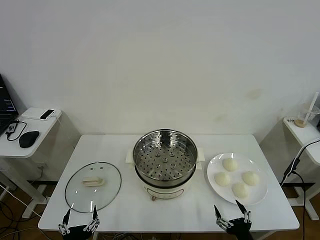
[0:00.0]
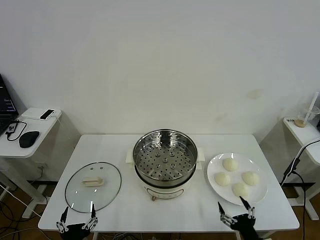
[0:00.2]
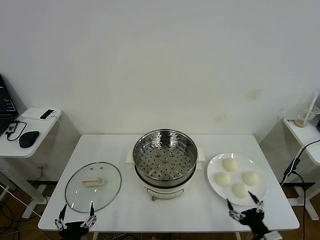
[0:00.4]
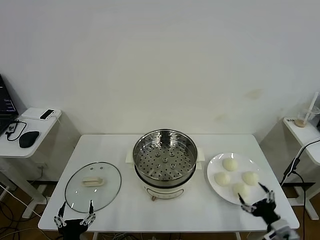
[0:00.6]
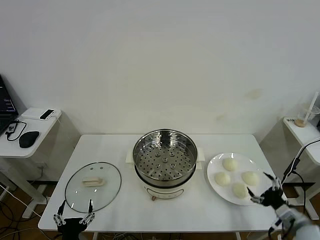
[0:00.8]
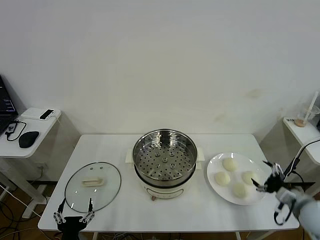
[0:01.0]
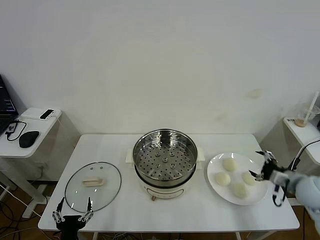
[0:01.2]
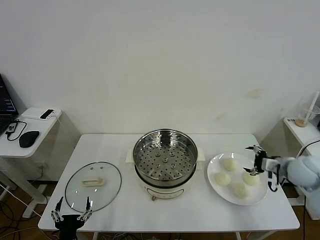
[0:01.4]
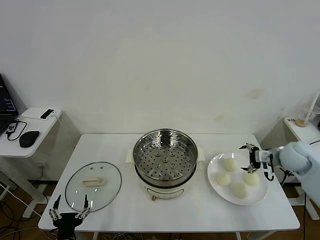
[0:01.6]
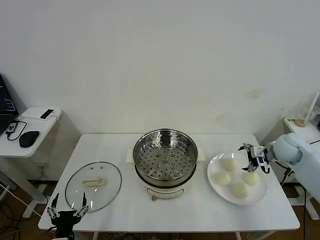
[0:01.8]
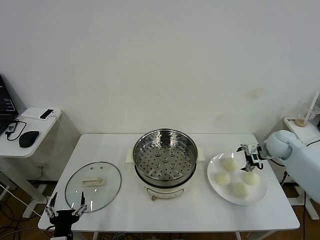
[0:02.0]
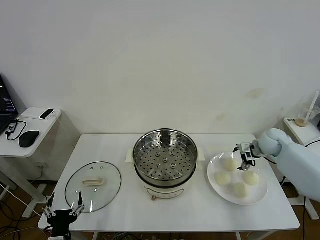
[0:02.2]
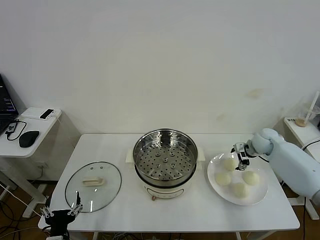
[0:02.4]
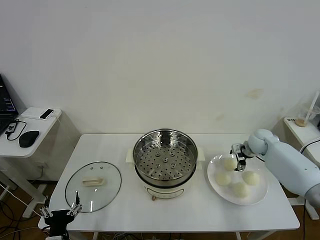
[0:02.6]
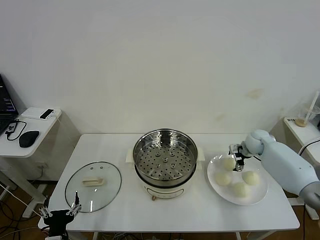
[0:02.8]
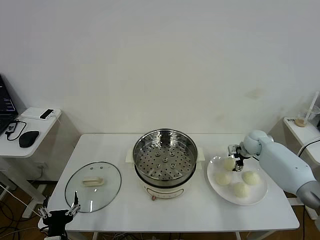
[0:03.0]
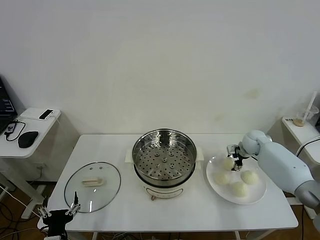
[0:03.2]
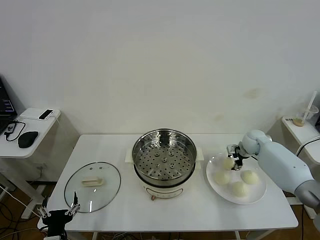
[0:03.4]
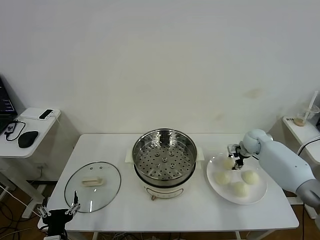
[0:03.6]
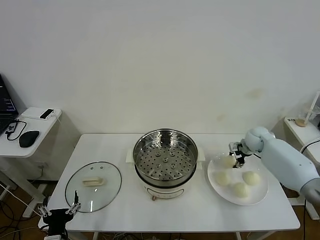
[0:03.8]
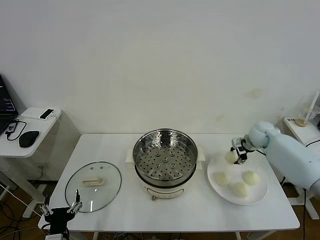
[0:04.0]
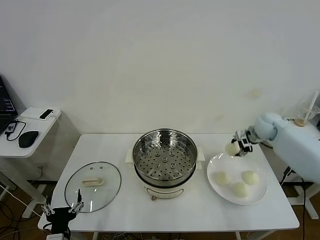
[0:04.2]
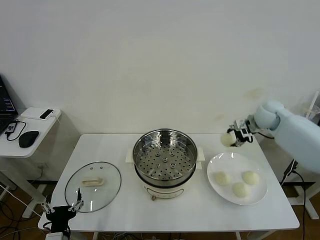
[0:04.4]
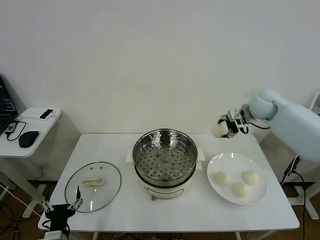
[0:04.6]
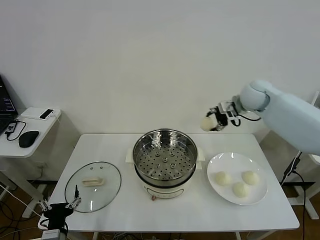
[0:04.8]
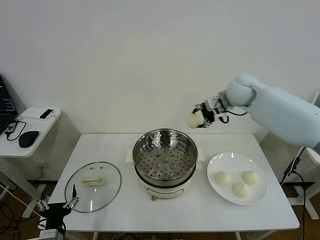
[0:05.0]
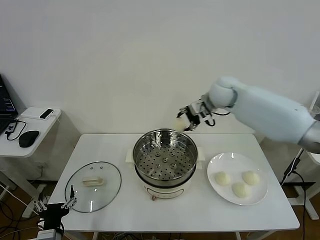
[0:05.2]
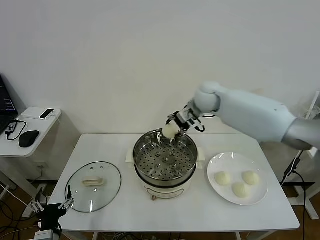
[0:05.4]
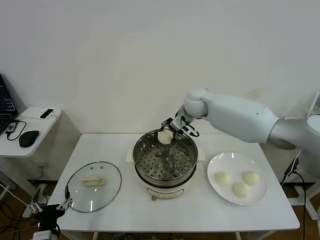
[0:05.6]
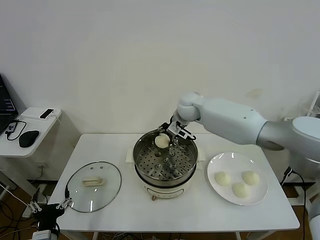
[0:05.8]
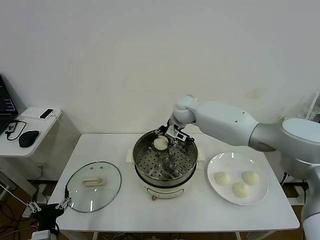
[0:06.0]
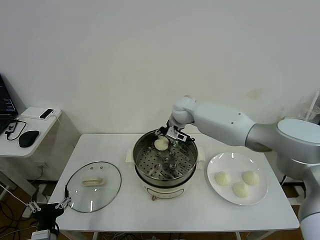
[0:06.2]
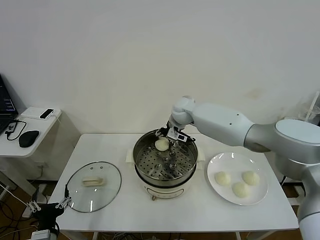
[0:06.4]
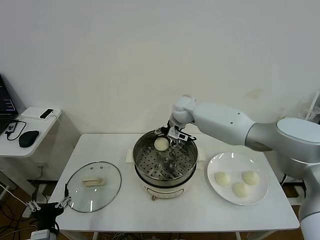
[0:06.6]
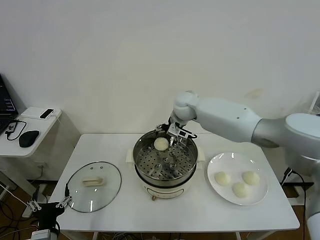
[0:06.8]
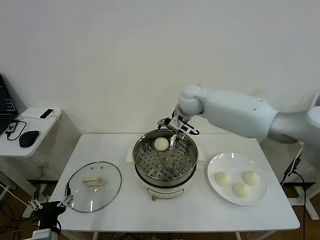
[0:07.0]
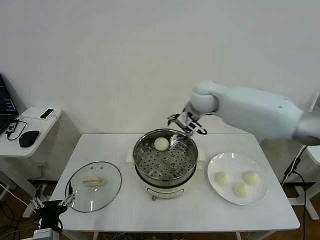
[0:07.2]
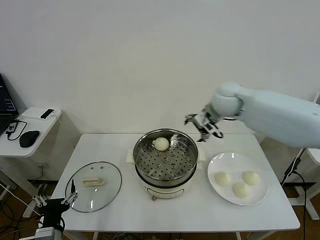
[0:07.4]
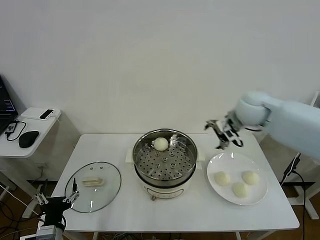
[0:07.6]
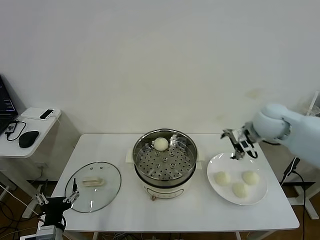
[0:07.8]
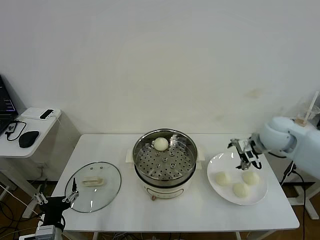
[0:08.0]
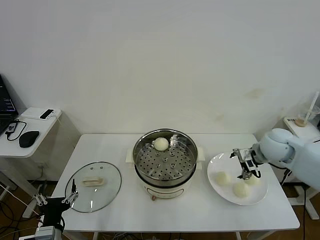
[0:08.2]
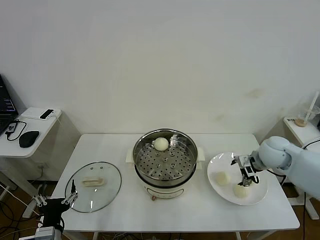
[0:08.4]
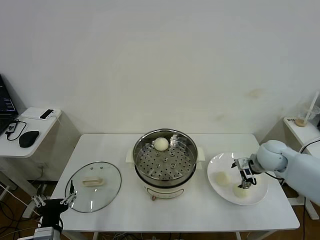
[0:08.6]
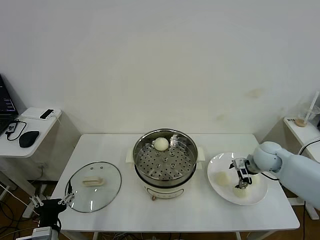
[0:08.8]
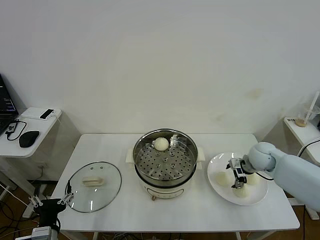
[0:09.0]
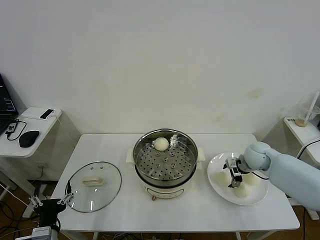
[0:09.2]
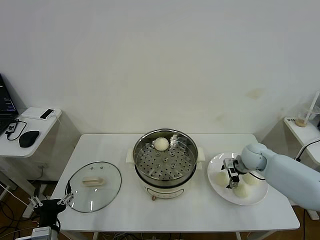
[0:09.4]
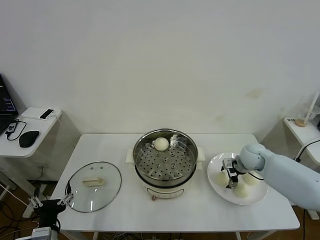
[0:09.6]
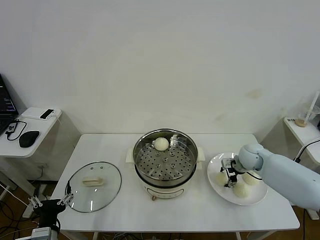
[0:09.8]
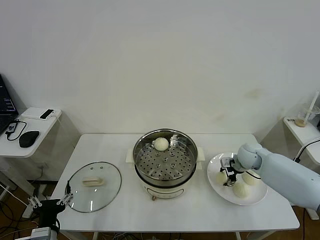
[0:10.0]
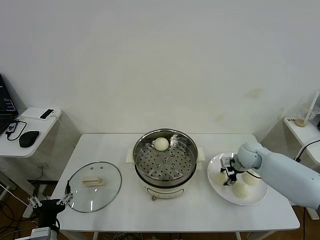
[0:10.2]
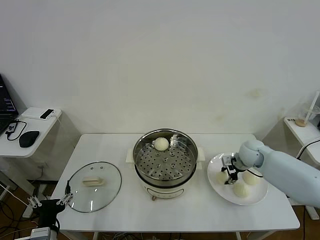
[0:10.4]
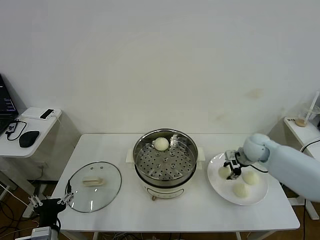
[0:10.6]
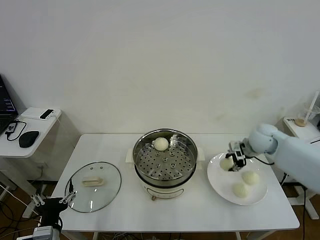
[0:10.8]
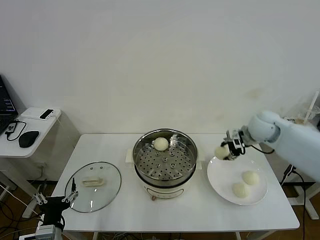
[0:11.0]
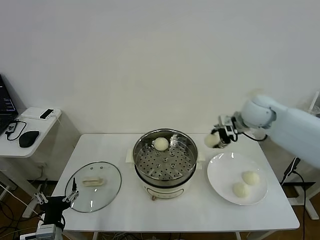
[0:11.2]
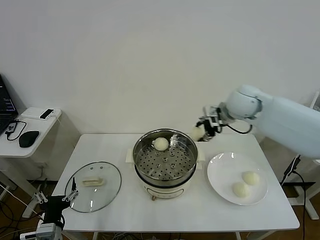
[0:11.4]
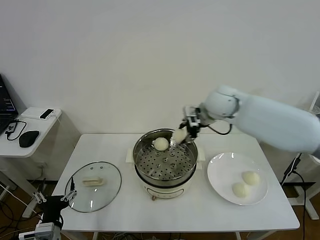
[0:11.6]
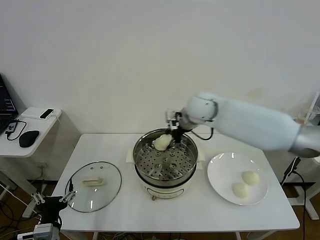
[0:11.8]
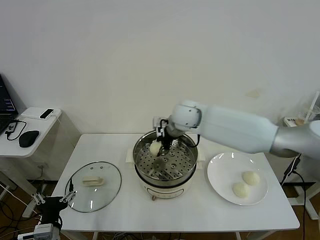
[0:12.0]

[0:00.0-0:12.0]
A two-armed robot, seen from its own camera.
Task of the whole recording: take steamed baozi put them in steamer then cover it.
Step, 0.0 to 3.4 s: Grasp the baozi in the plate with right gripper.
Step, 3.6 to 6.6 s: Place the baozi on the steamer with right gripper.
Step, 6.8 to 10.2 s: Grasp the baozi in the plate with right gripper.
1.6 to 3.0 s: The right gripper goes about 15 cm forward, downward and to the left, and closes up.
3.0 to 4.4 s: The right gripper shifts approximately 20 cm upward, and closes up.
4.4 to 6.0 s: The right gripper heads to the left, covering some 25 cm.
6.0 to 7.6 s: The right gripper shifts about 25 cm to the right and backward, and opens up.
7.6 to 9.0 s: The right gripper heads downward, covering approximately 20 cm.
9.0 to 10.4 s: The right gripper closes.
10.4 to 12.0 s: The right gripper moves to the left and upward, about 30 cm.

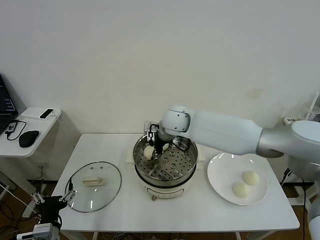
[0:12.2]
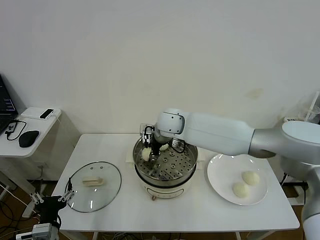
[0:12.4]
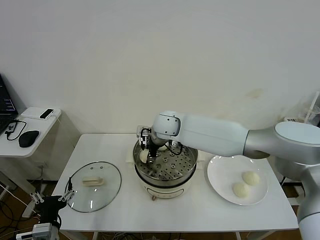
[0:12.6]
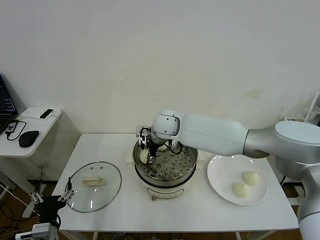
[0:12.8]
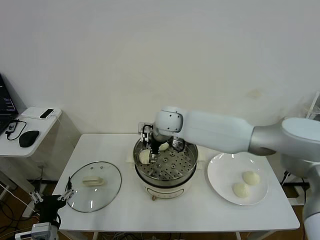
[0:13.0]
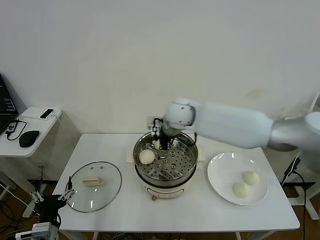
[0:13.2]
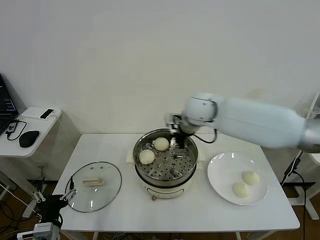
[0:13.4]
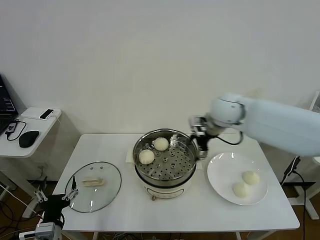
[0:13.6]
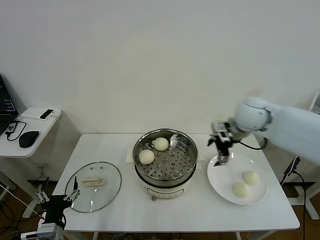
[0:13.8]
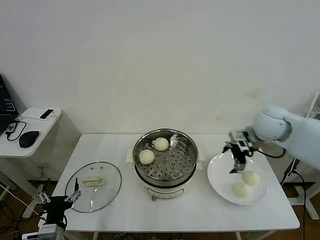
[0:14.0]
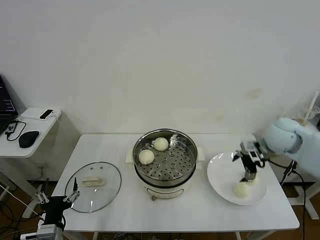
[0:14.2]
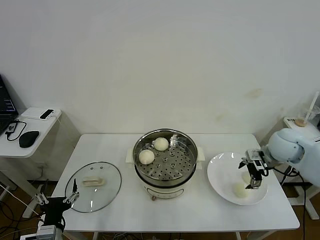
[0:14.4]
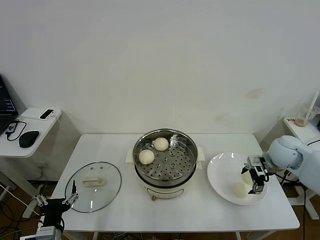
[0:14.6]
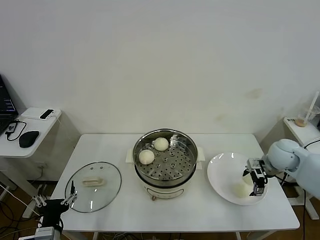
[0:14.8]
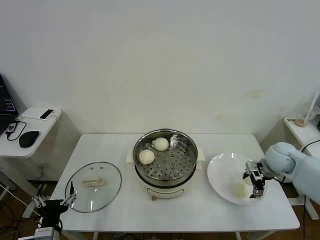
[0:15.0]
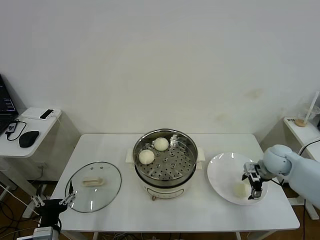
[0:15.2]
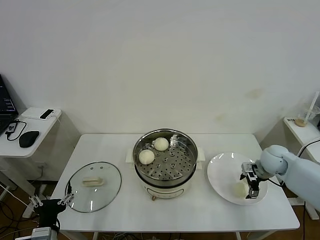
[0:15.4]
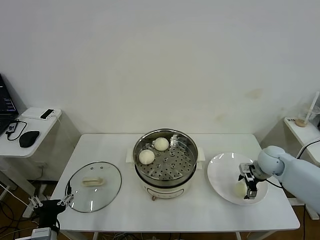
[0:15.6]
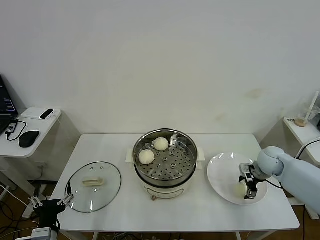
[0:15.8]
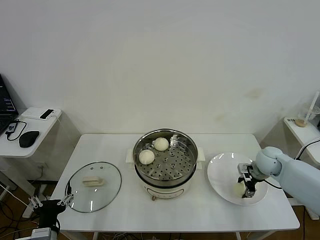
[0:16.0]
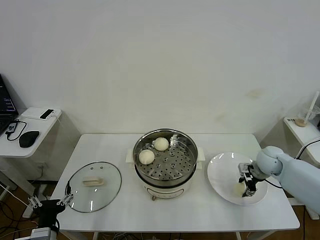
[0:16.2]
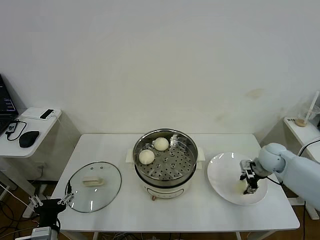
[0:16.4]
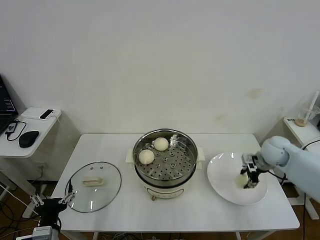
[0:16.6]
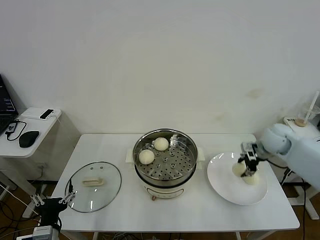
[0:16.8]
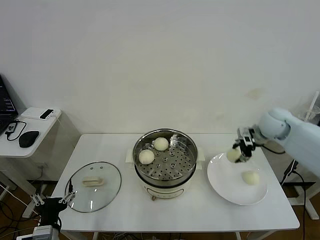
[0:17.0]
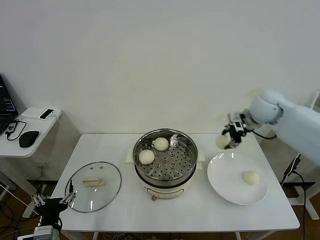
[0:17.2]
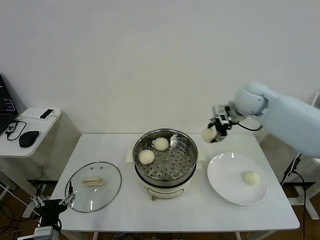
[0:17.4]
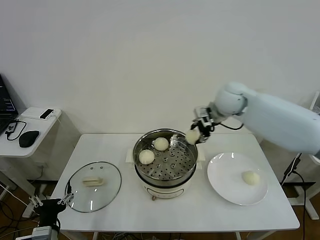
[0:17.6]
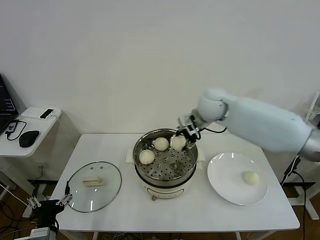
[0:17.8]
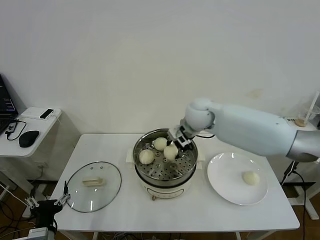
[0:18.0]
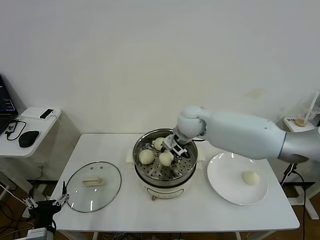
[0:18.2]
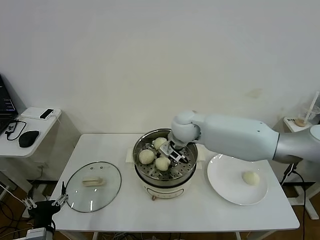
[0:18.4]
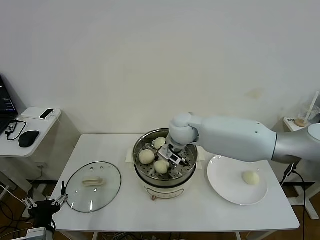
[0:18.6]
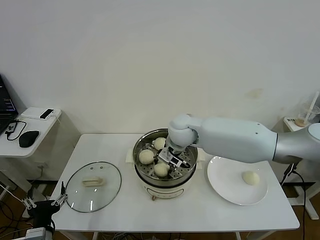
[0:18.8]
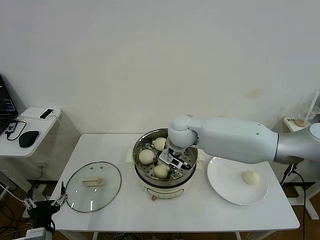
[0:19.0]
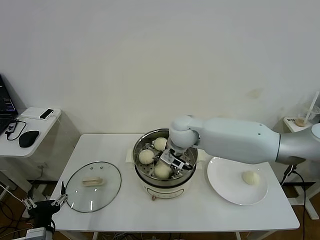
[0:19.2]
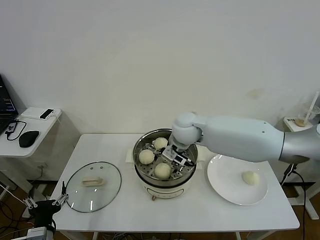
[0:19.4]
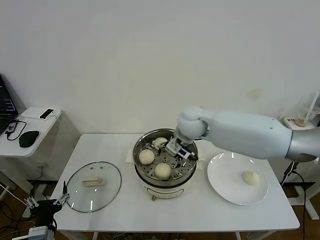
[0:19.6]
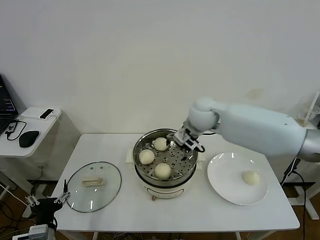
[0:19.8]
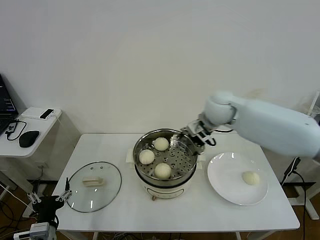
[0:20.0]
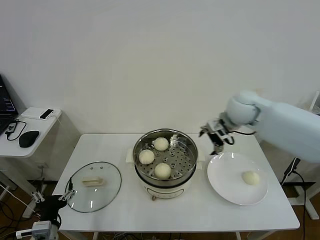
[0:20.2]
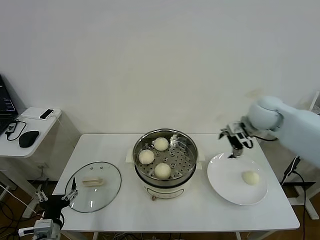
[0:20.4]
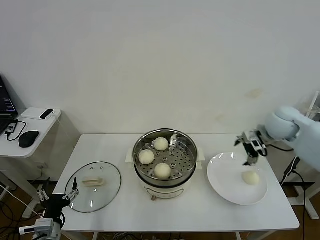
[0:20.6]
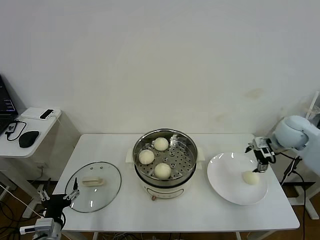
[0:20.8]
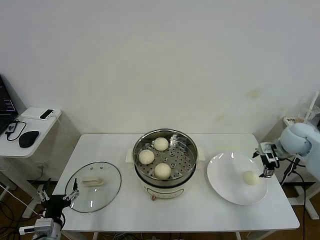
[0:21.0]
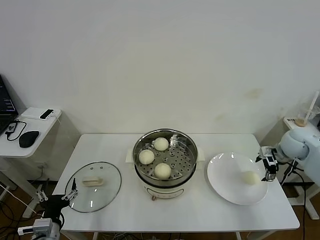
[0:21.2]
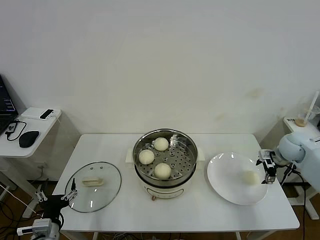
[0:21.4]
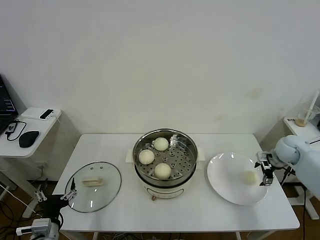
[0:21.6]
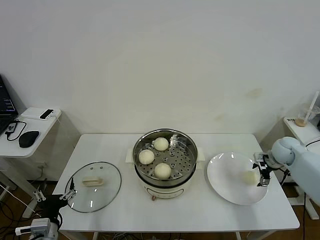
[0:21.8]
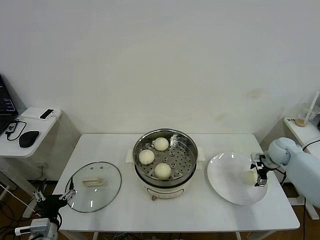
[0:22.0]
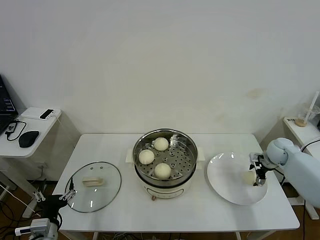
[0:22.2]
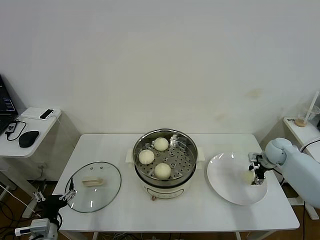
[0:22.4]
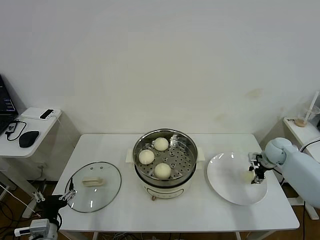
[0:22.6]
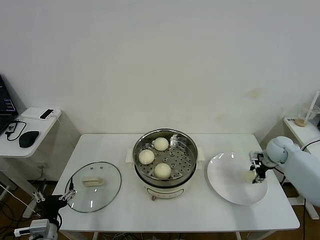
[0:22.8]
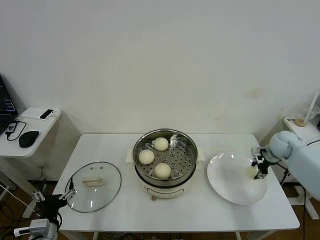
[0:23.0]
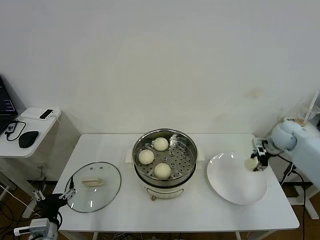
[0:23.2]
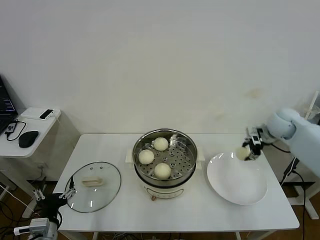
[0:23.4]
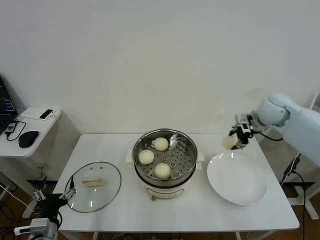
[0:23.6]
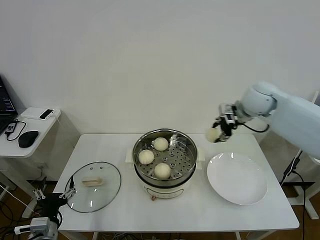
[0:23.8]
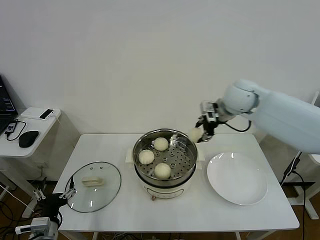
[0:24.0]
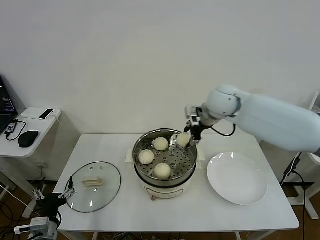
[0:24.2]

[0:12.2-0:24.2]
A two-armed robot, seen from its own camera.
Task of the whole recording: take steamed baozi put them in steamer then cover it.
Step, 13.4 to 16.0 s: Grasp the baozi in the plate with right gripper.
Step, 16.2 to 19.4 s: Place the baozi on the steamer with right gripper.
Step, 19.6 to 22.6 s: Grasp the baozi in the plate with right gripper.
12.2 to 13.8 s: The right gripper heads to the right, covering some 25 cm, and opens up.
13.8 to 15.2 s: The right gripper goes roughly 20 cm downward and to the right.
15.2 to 16.6 s: The right gripper closes.
16.6 to 18.2 s: The right gripper is displaced to the left by roughly 30 cm.
18.2 to 19.8 s: The right gripper moves roughly 5 cm, and opens.
19.8 to 21.2 s: The right gripper goes about 30 cm to the right.
21.2 to 22.6 s: The right gripper goes approximately 10 cm downward, and closes up.
22.6 to 24.2 s: The right gripper travels to the left and upward by some 35 cm.
